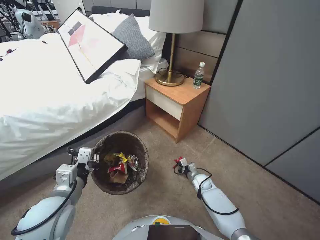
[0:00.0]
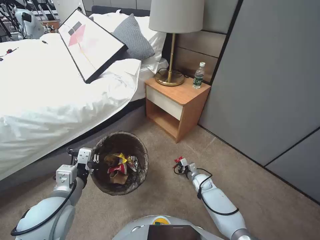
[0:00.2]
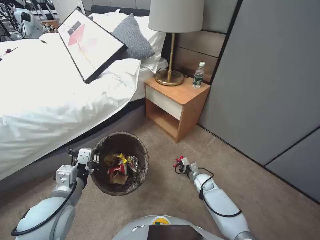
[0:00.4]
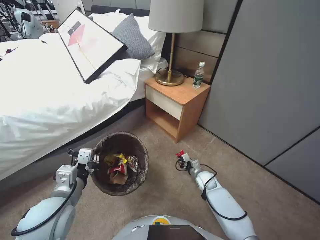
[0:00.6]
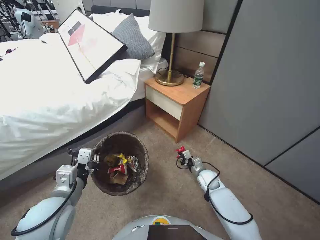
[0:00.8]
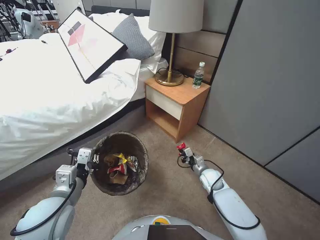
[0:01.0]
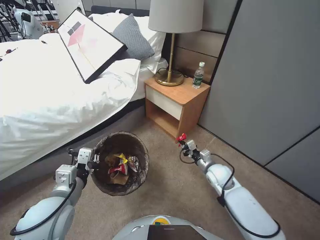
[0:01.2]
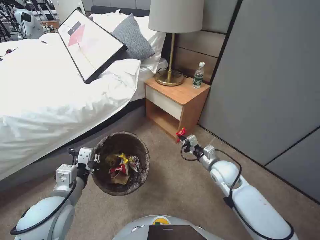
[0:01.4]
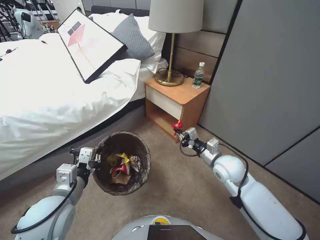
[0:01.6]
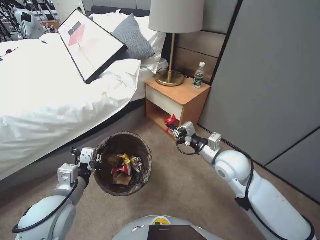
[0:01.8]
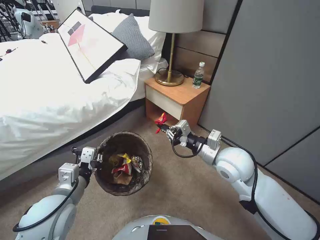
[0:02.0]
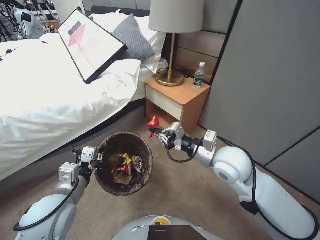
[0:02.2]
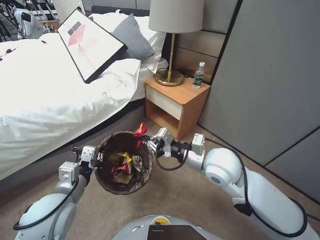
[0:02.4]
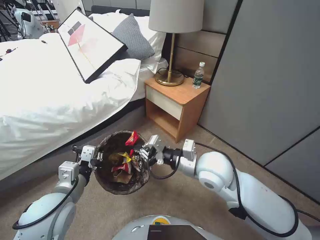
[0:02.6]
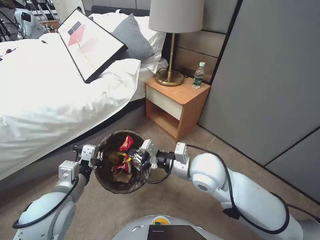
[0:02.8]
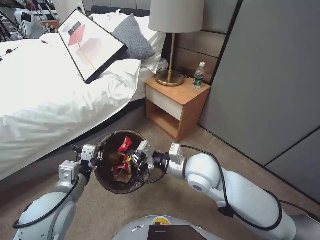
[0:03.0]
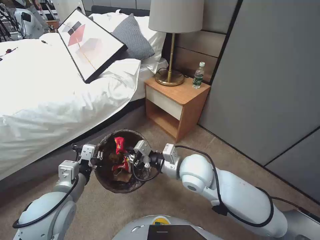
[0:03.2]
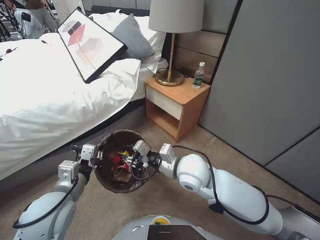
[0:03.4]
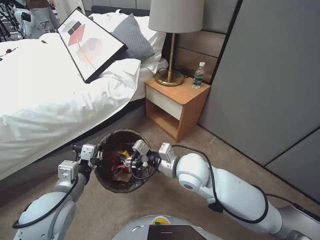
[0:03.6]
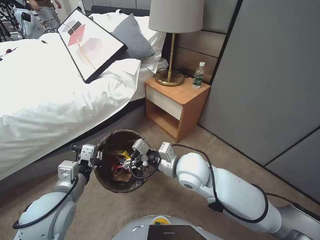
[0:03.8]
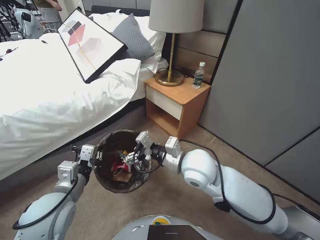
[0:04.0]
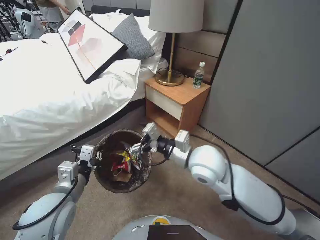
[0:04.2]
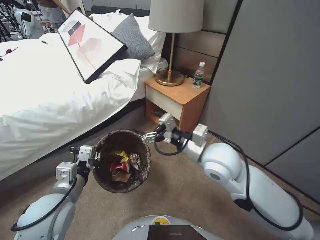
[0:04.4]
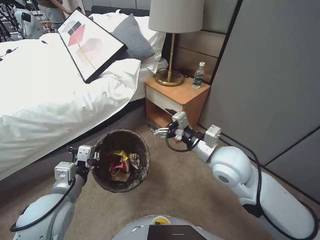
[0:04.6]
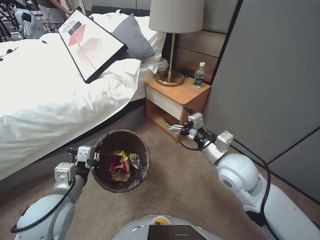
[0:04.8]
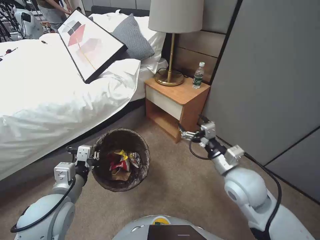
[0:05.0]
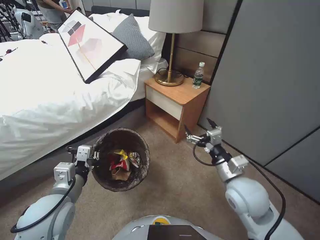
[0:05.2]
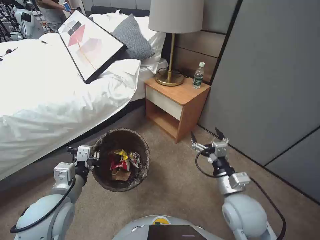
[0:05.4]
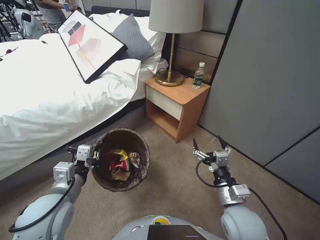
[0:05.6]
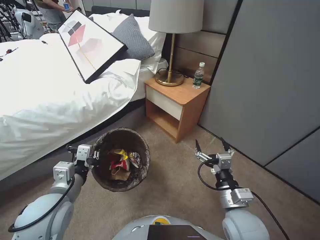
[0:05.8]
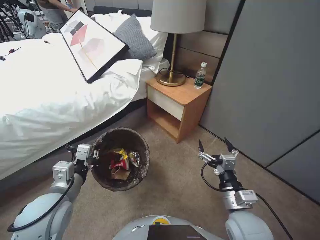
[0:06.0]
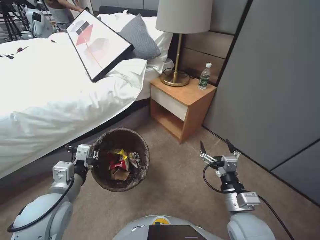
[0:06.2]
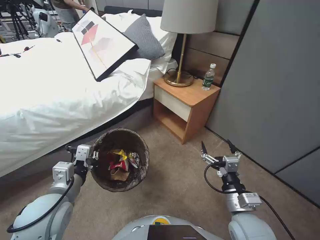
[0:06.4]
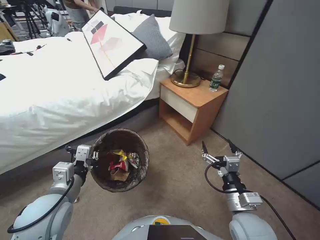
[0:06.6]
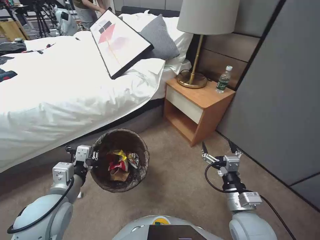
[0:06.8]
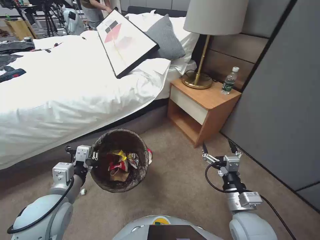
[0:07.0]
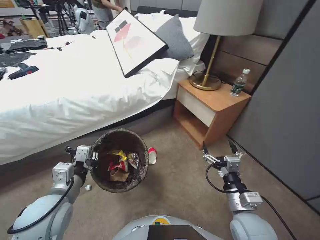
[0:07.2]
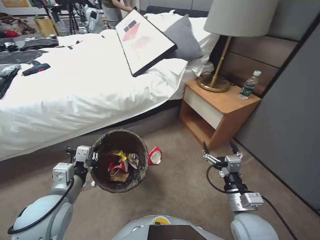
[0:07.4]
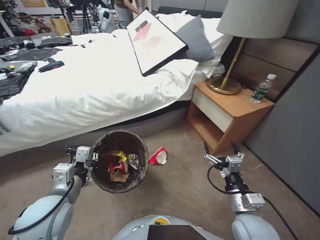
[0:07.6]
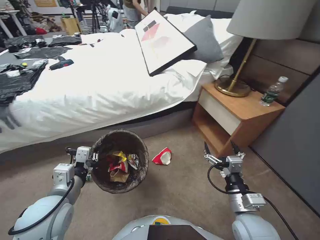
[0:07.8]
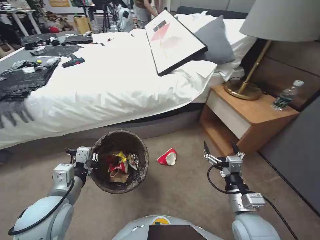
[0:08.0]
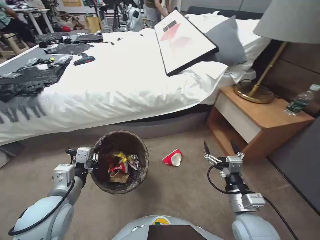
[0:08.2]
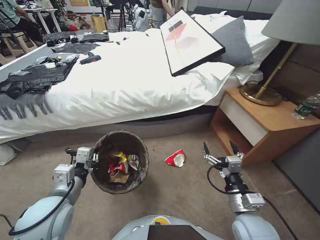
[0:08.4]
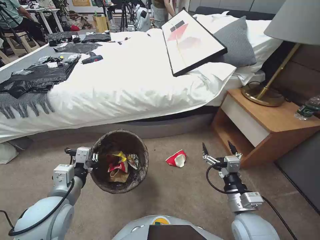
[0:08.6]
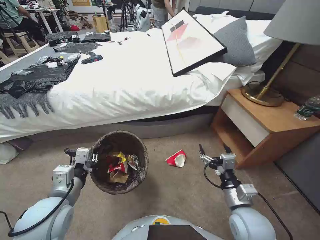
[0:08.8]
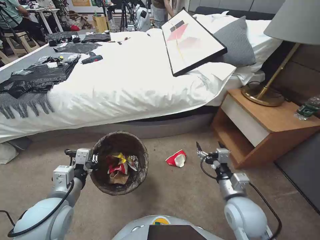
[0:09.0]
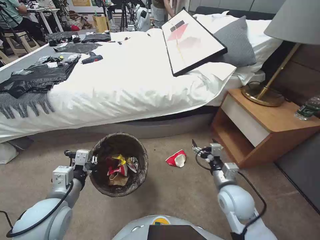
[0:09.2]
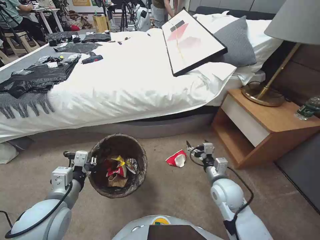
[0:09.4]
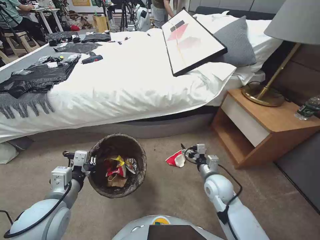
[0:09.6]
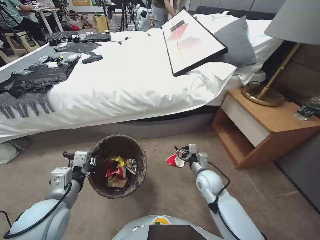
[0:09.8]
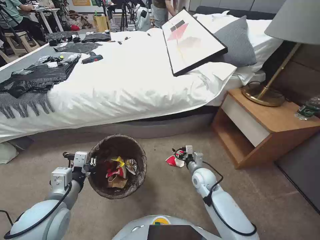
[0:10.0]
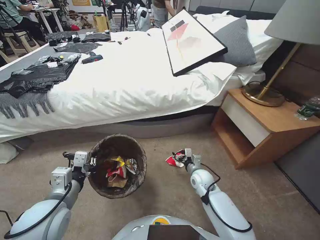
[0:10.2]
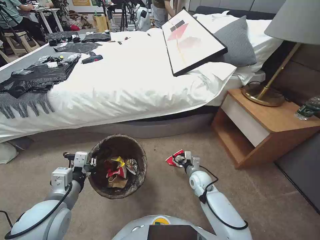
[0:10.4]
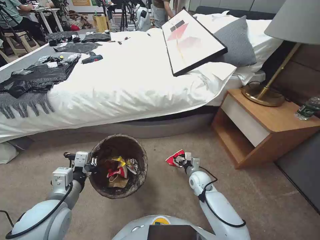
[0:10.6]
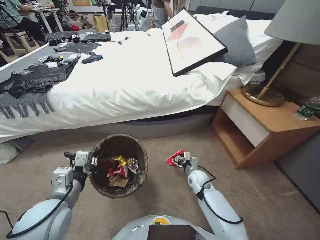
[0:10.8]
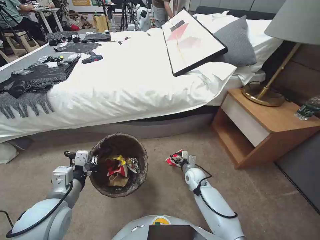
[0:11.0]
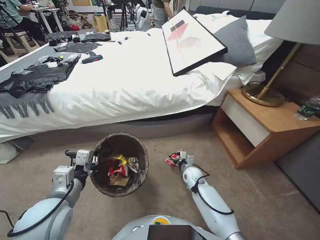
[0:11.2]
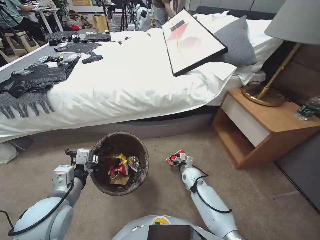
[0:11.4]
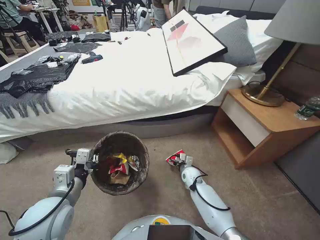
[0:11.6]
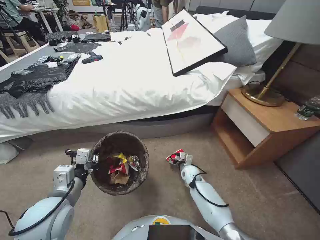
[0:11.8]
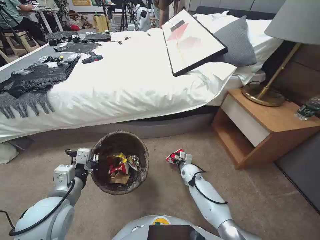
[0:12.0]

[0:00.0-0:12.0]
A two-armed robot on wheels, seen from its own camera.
Task of the whole recording: Pick up the trash bin, then pick up the garbage from the floor and place it into the trash bin.
0:00.0 to 0:01.6: The right gripper moves upward, approximately 25 cm.
0:01.6 to 0:03.0: The right gripper goes some 15 cm to the left and upward.
0:03.0 to 0:04.4: The right gripper shifts by roughly 5 cm, and opens its fingers.
0:04.4 to 0:06.0: The right gripper shifts some 20 cm backward, downward and to the right.
0:09.0 to 0:10.4: The right gripper heads forward and downward, covering about 20 cm.
0:10.4 to 0:12.0: The right gripper travels downward and forward by some 10 cm.

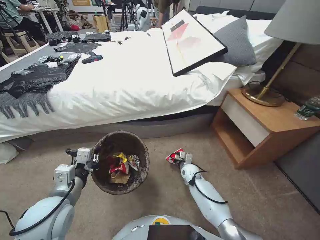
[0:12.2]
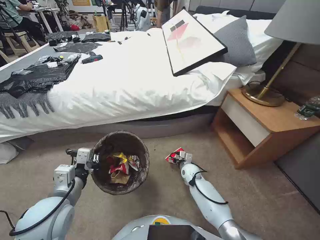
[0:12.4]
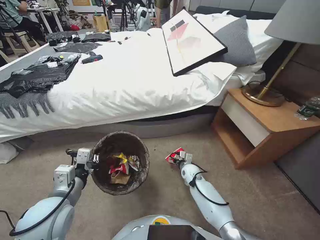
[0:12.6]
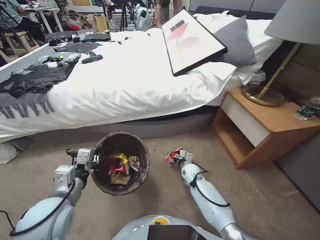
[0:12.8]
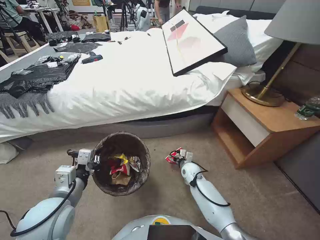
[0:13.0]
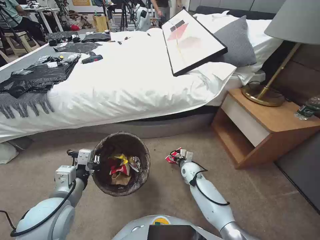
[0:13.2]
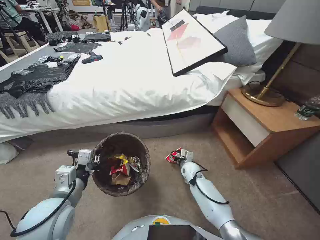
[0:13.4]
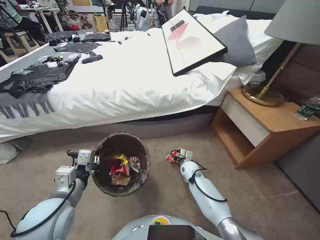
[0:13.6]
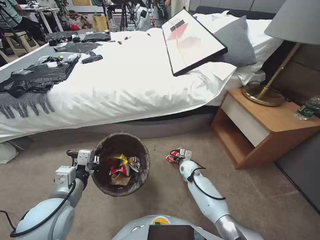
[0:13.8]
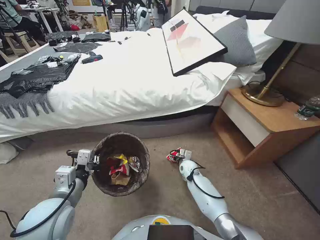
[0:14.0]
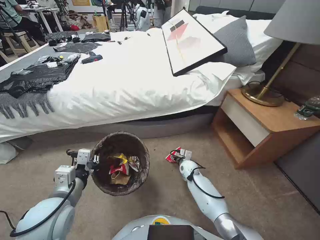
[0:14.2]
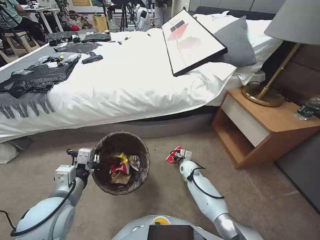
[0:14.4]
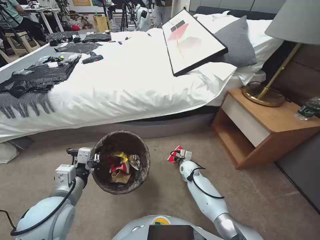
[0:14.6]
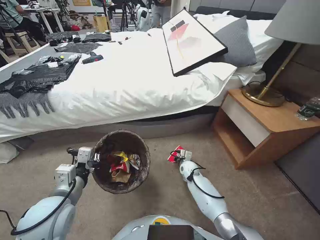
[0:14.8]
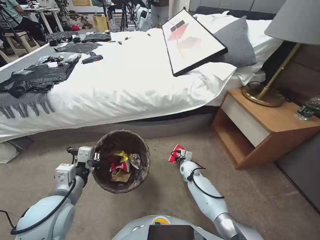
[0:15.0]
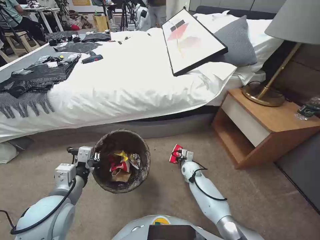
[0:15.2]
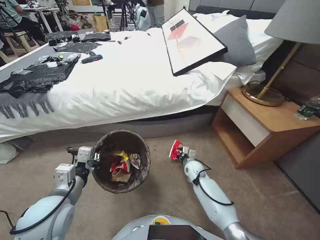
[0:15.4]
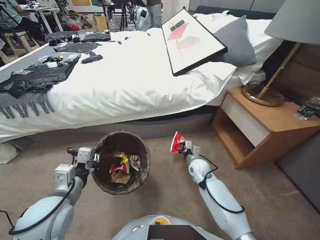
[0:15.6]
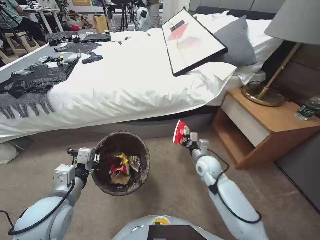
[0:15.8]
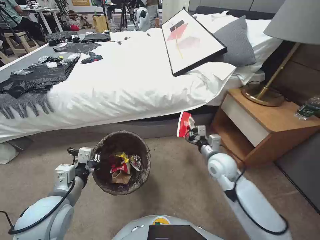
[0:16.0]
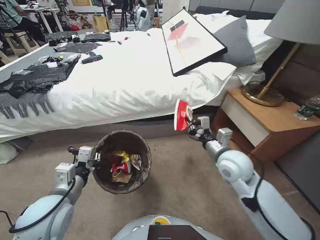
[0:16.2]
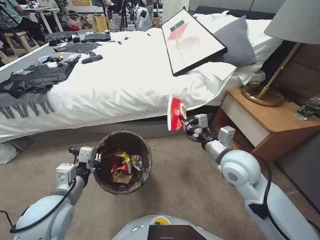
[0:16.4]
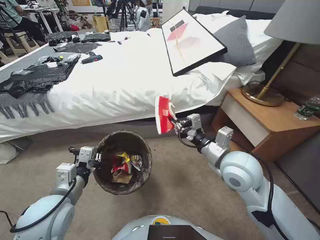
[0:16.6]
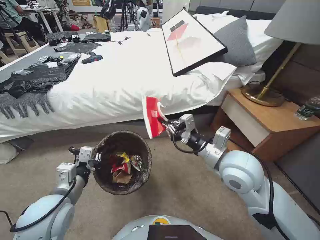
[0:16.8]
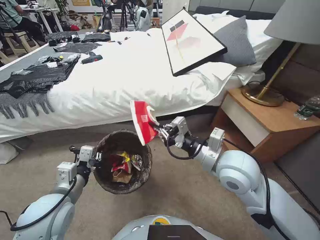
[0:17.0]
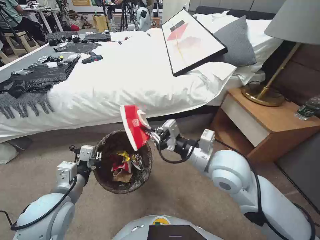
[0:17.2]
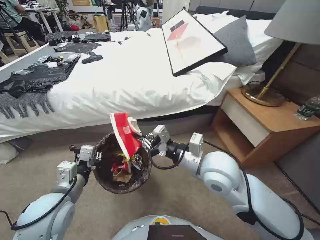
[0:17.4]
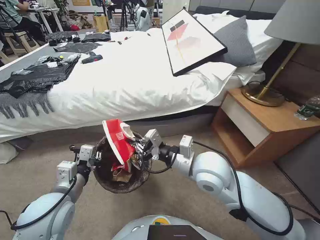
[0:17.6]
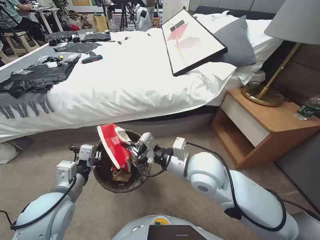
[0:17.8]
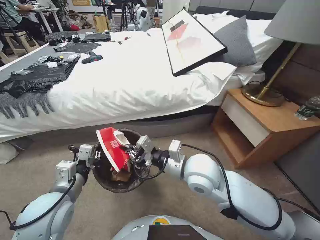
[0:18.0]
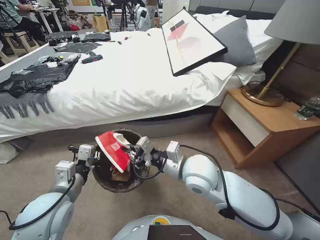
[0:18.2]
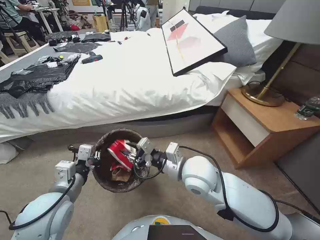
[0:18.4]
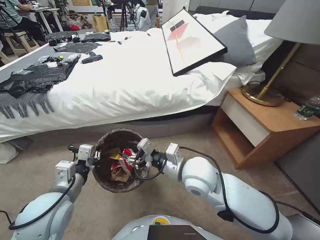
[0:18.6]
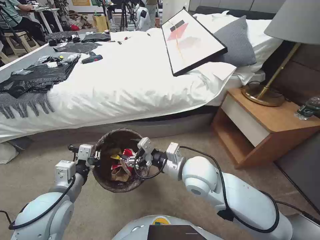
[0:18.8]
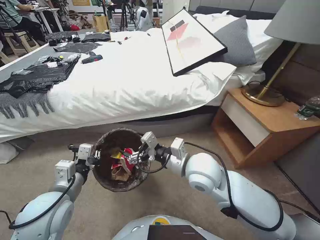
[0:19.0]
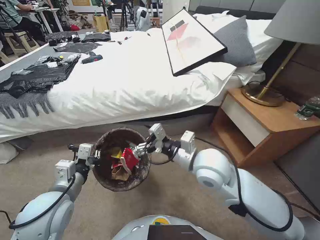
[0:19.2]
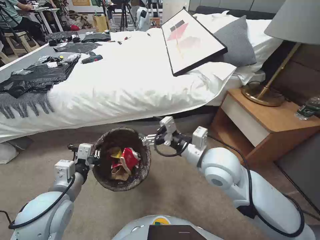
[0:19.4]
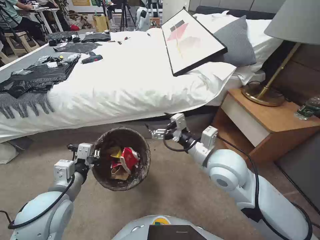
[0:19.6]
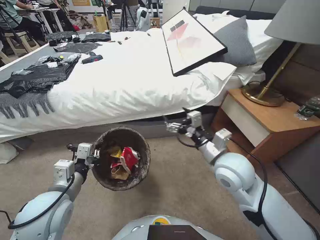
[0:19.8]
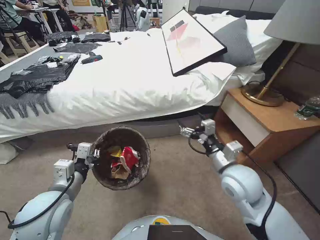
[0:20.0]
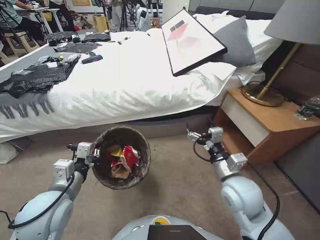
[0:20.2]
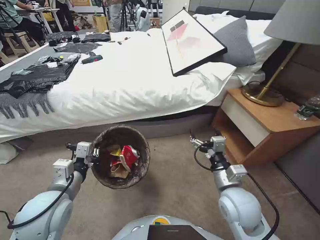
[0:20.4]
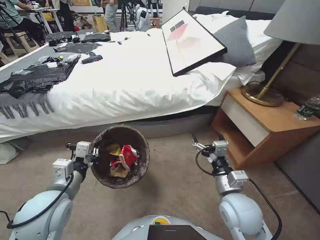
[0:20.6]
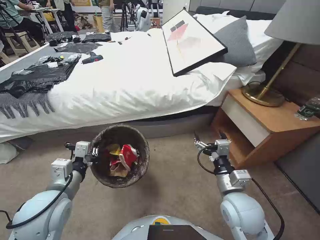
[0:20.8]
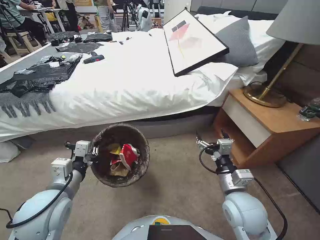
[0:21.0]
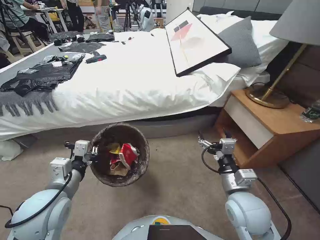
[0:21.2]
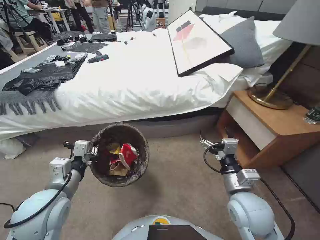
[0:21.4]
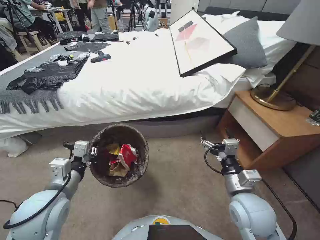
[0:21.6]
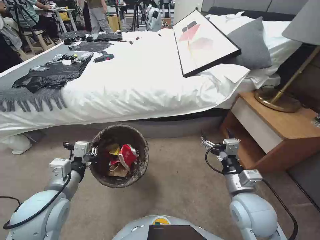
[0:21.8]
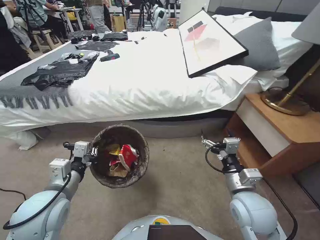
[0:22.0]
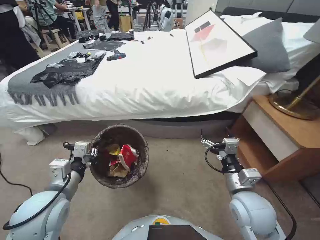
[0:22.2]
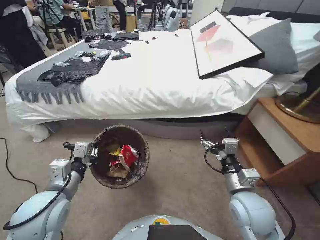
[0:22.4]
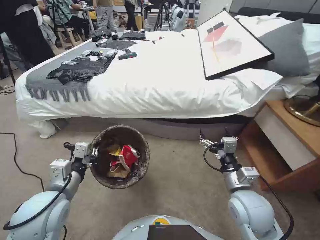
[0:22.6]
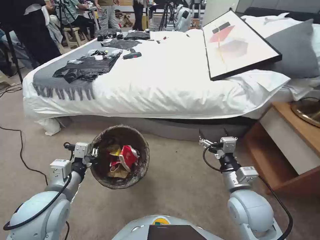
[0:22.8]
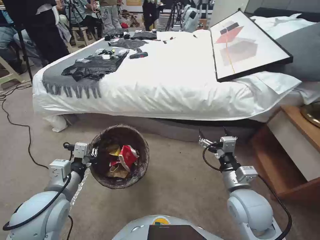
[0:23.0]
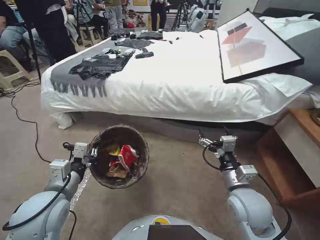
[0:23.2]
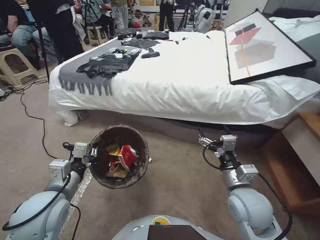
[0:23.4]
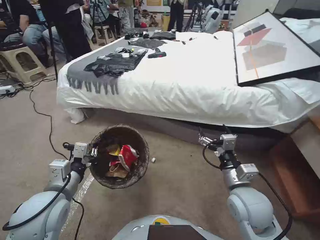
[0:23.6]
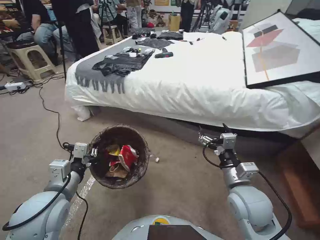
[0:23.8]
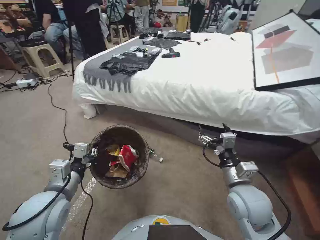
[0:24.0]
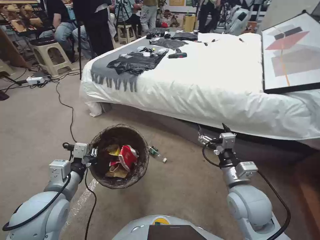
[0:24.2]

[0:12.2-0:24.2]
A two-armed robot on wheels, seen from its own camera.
Task of the whole recording: Pick up the trash bin, then pick up the garbage from the floor and place it into the trash bin.
0:12.2 to 0:13.8: There are only small adjustments of the grippers.
0:13.8 to 0:15.2: The right gripper closes up.
0:15.2 to 0:16.6: The right gripper is displaced upward by approximately 35 cm.
0:16.6 to 0:18.2: The right gripper shifts approximately 10 cm to the left.
0:18.2 to 0:19.8: The right gripper moves to the right, roughly 10 cm, and opens up.
0:19.8 to 0:21.2: The right gripper shifts about 15 cm downward, backward and to the right.
